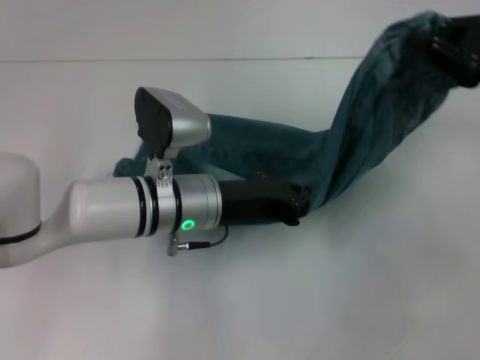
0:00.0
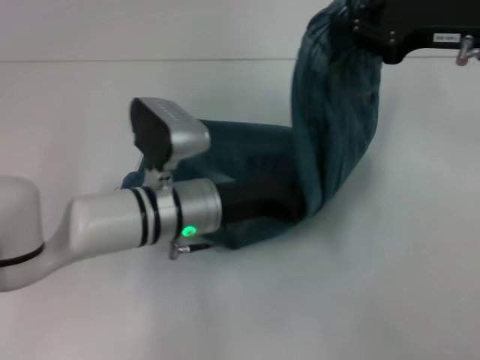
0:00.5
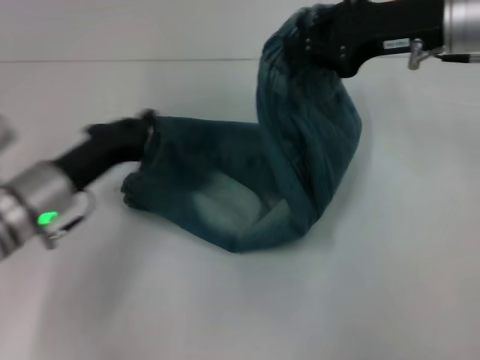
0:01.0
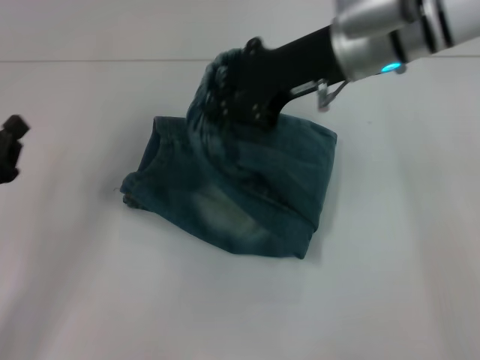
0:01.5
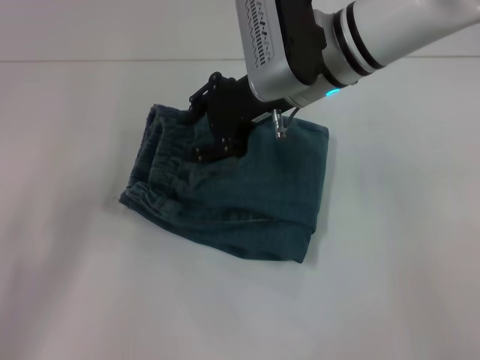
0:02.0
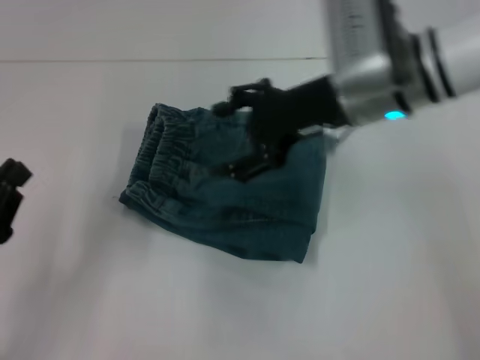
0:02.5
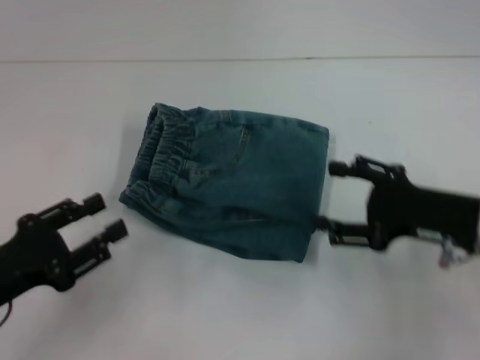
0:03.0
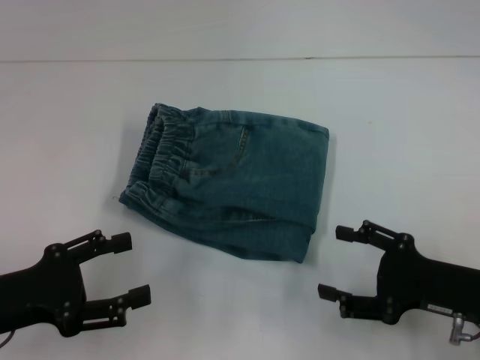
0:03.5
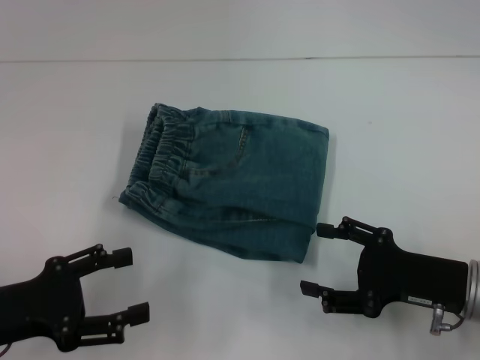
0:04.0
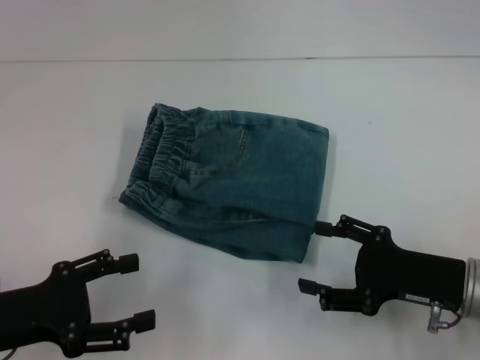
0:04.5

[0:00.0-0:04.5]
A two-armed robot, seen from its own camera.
Step, 0:01.0 to 0:02.0: Fold to the left with your right hand.
0:00.0 to 0:02.0: The right gripper shifts some 25 cm to the left, while the left gripper shifts some 30 cm to the left and backward.
0:02.0 to 0:04.5: The left gripper opens. The right gripper goes some 30 cm to the right, backward and downward, and opens up.

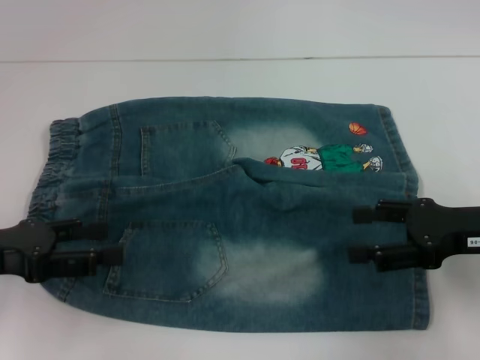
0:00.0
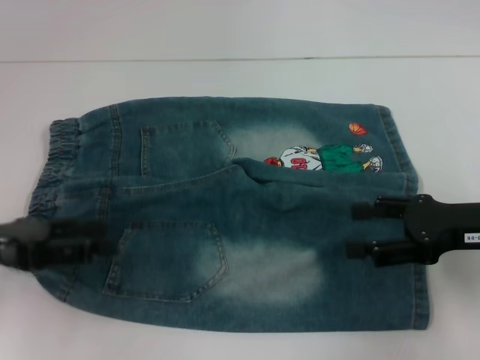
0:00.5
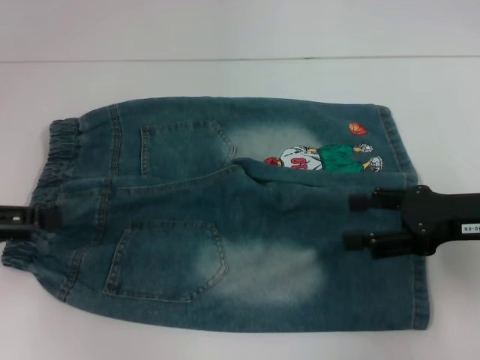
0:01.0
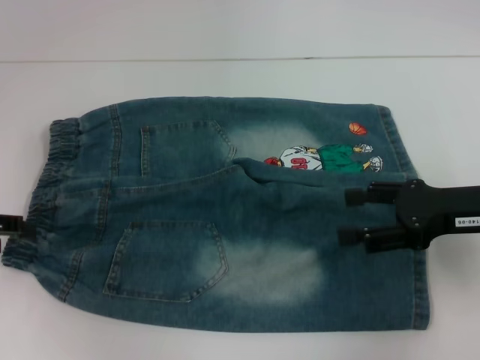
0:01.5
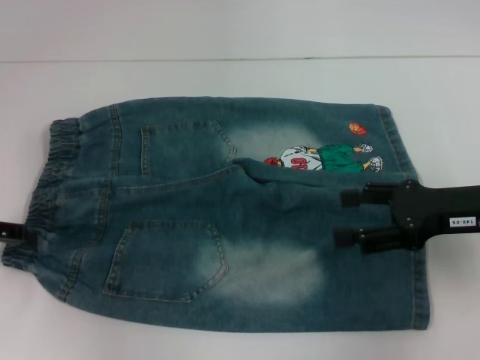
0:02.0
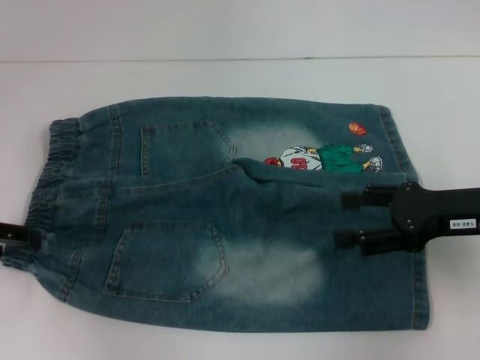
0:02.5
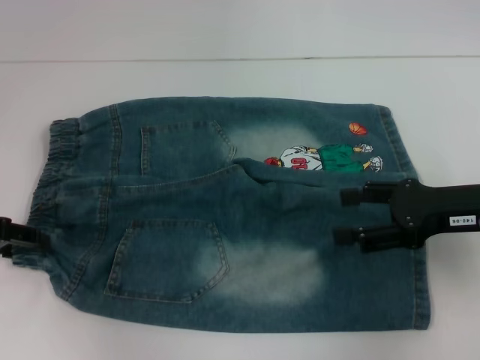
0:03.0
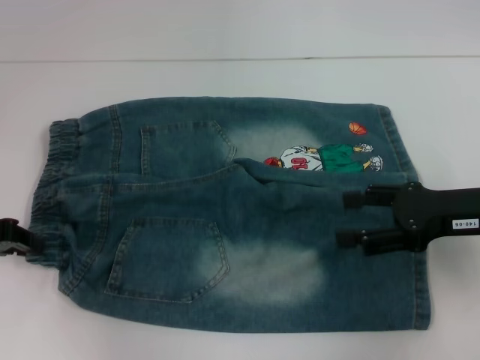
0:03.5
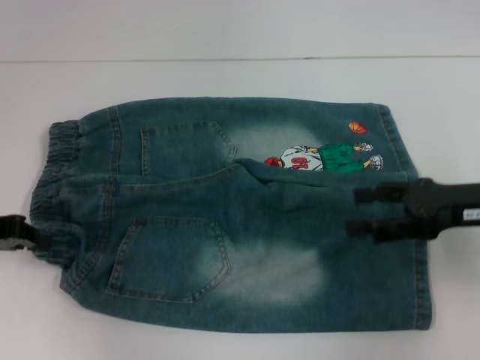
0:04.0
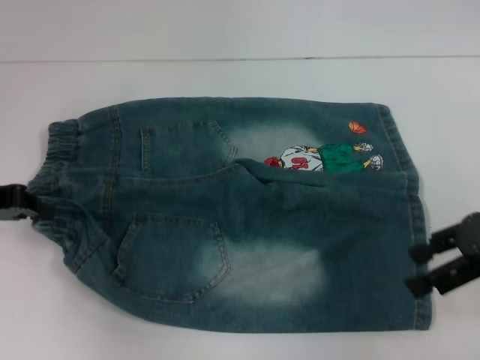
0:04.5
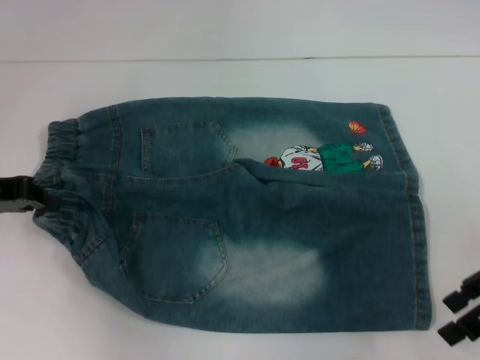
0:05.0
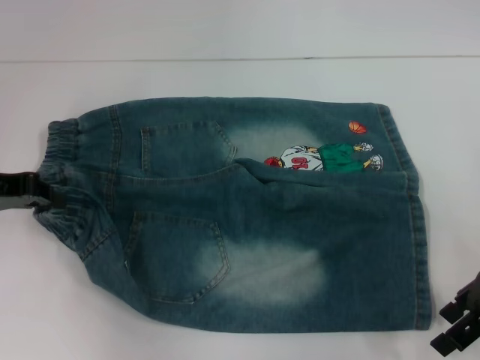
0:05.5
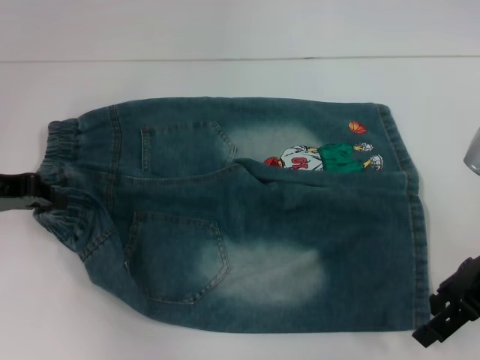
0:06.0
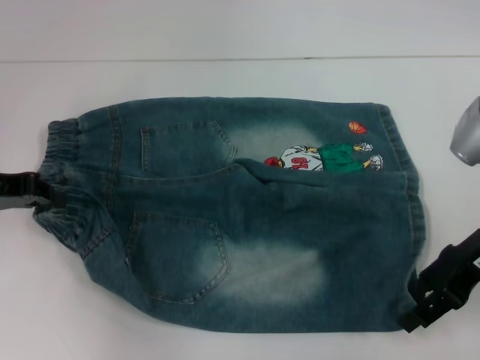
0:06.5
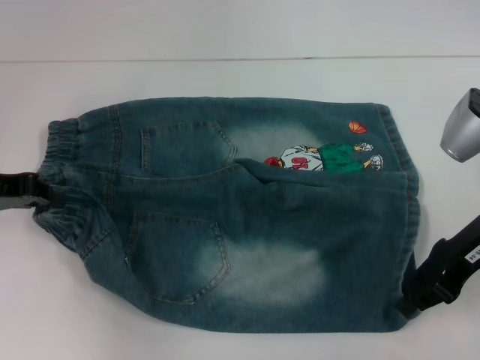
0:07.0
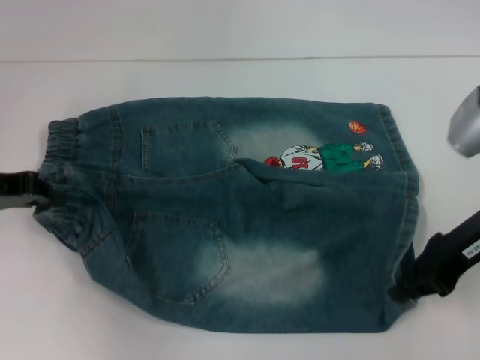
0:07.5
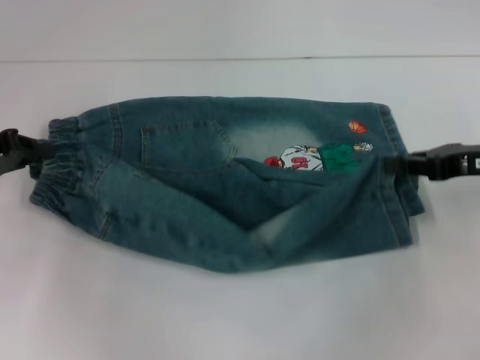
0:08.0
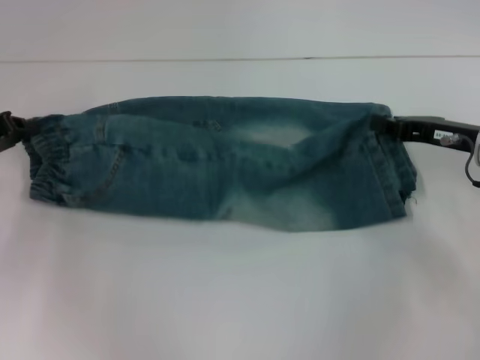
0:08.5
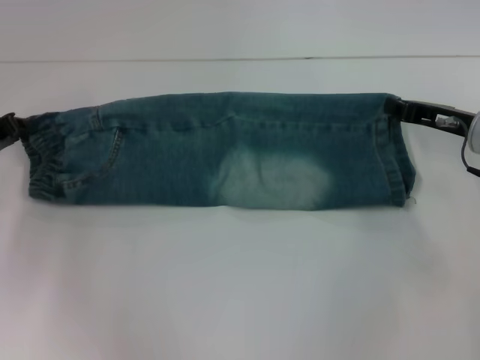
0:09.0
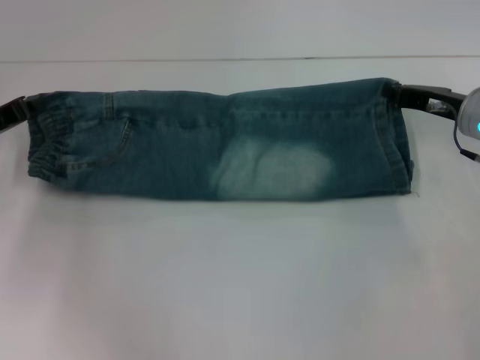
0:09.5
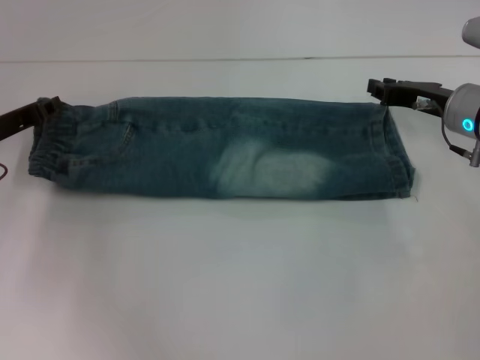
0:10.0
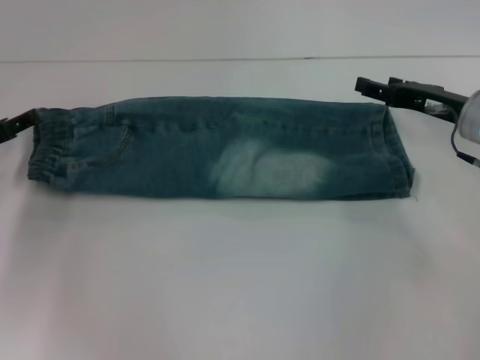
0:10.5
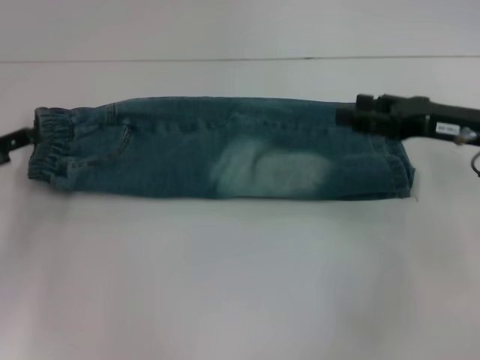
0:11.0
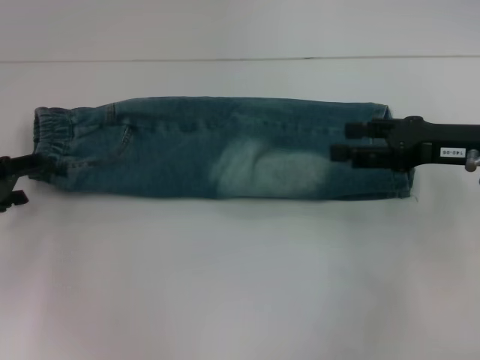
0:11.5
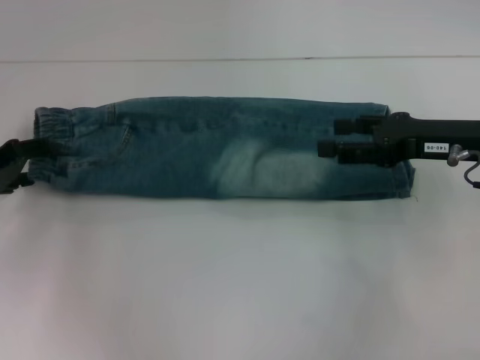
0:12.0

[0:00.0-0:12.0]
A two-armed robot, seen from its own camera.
Step, 0:00.0 to 0:03.5: Hold the lower left waistband with your left hand.
Step, 0:04.0 to 0:07.0: Grab the lower right pant leg with your right hand.
Step, 0:07.5 to 0:09.5: Fold upward with your right hand.
Step, 0:10.0 to 0:10.5: Fold upward with your left hand.
0:00.0 to 0:02.0: The left gripper goes some 5 cm forward and to the left.
0:02.0 to 0:04.0: The left gripper closes up.
0:06.0 to 0:08.0: The right gripper moves some 5 cm, and closes up.
0:08.0 to 0:10.0: The left gripper shifts by some 5 cm. The right gripper goes roughly 10 cm forward and to the left.
0:10.0 to 0:12.0: The right gripper heads backward, covering about 5 cm, and opens up. The left gripper opens up.

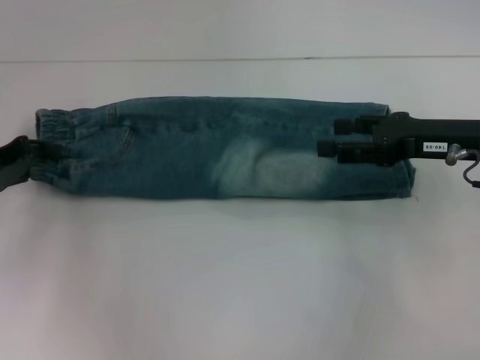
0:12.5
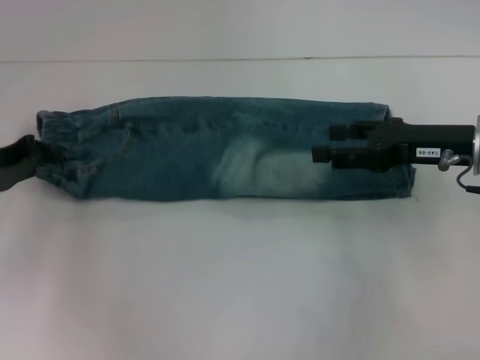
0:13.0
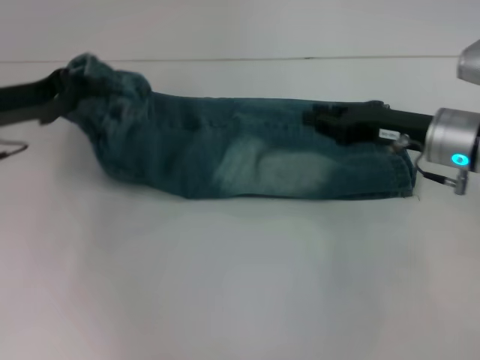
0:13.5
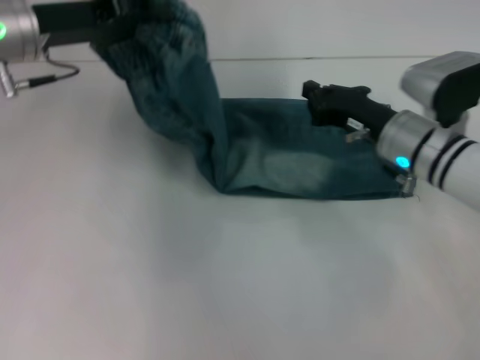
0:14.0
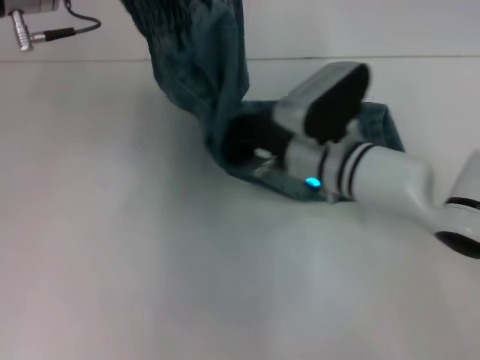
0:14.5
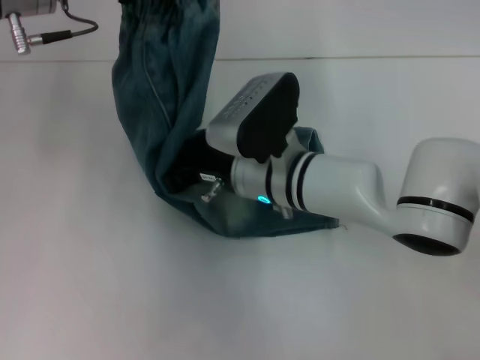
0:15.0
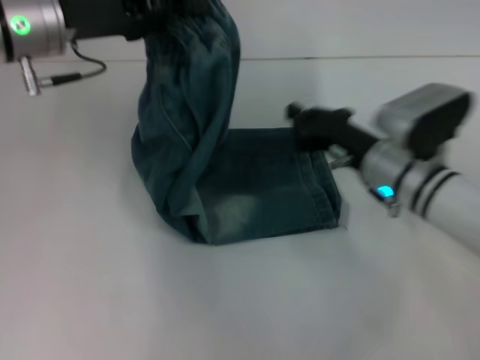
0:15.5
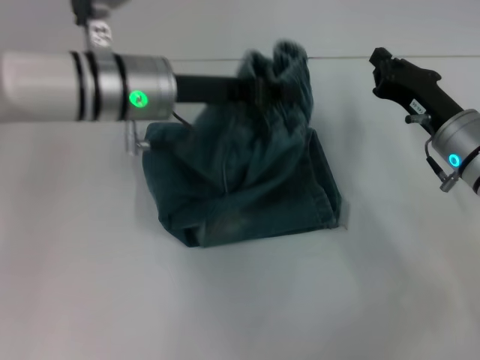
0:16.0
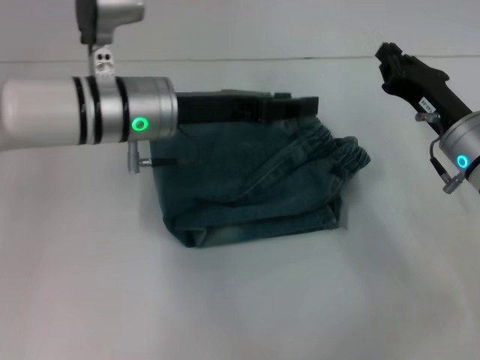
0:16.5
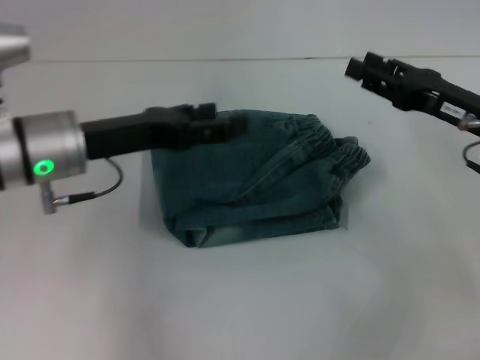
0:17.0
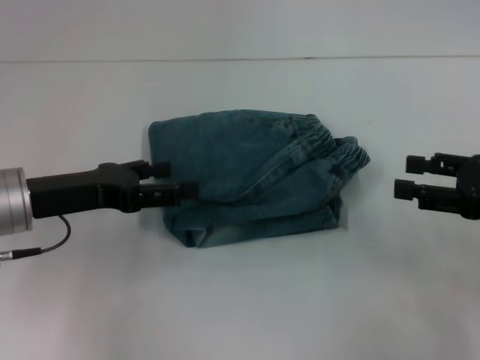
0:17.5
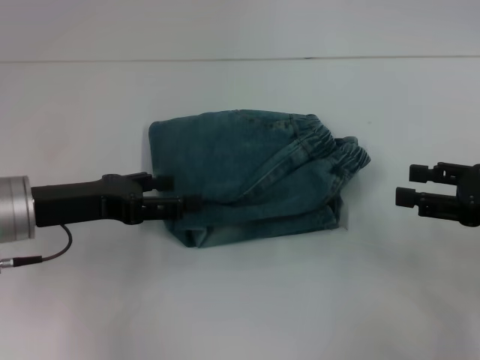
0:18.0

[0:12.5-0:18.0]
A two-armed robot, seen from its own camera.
Step, 0:13.0 to 0:15.0: Press the middle of the pants with your right hand.
Step, 0:15.5 to 0:16.0: Fold to the right with your left hand.
0:12.5 to 0:14.5: The left gripper moves upward, to the right and forward, some 20 cm, and closes up. The right gripper shifts roughly 15 cm to the left, and closes its fingers.
0:14.5 to 0:16.0: The left gripper heads to the right and downward, covering approximately 10 cm, while the right gripper is displaced to the right by roughly 15 cm.
0:16.0 to 0:18.0: The left gripper travels to the left and backward by approximately 15 cm, and opens up. Meanwhile the right gripper moves to the right and backward, roughly 15 cm, and opens up.

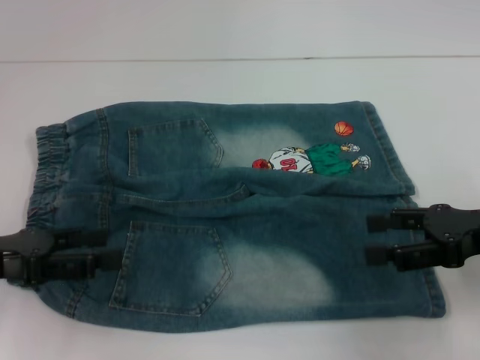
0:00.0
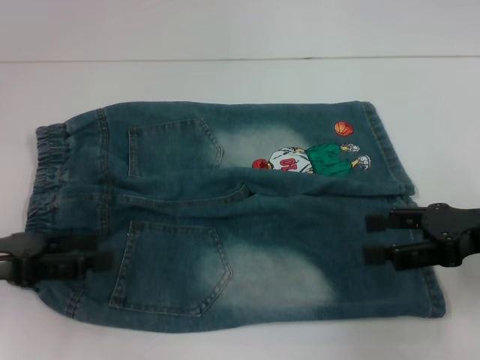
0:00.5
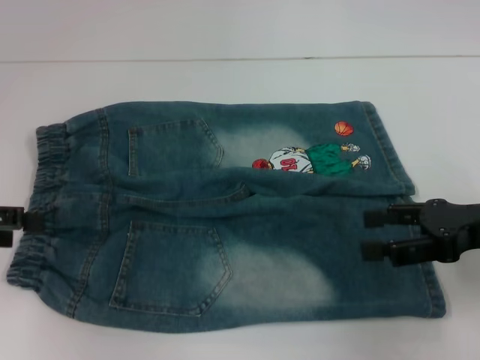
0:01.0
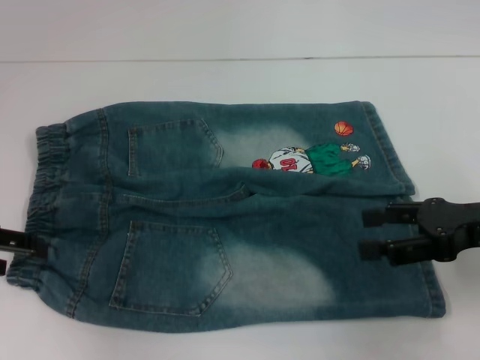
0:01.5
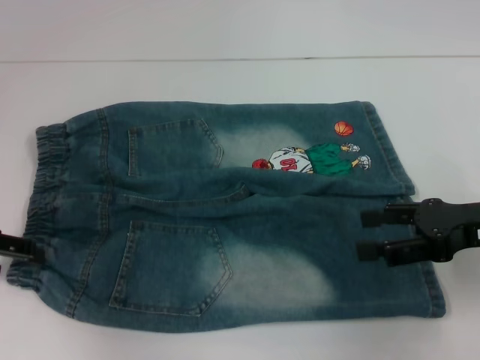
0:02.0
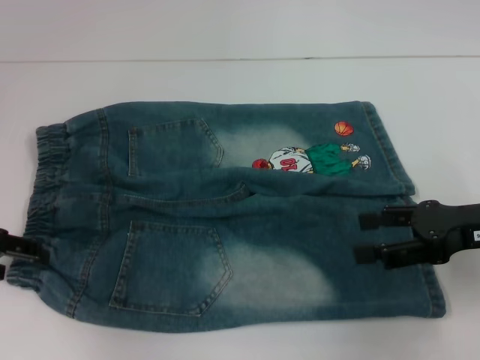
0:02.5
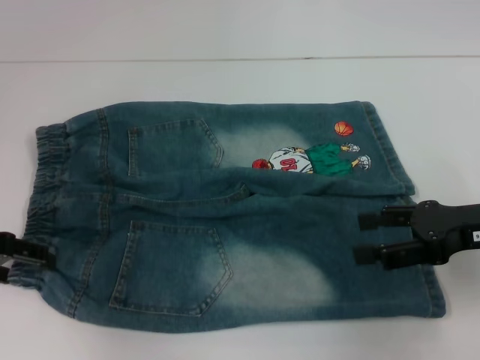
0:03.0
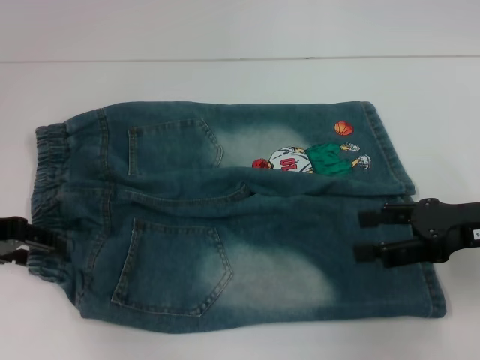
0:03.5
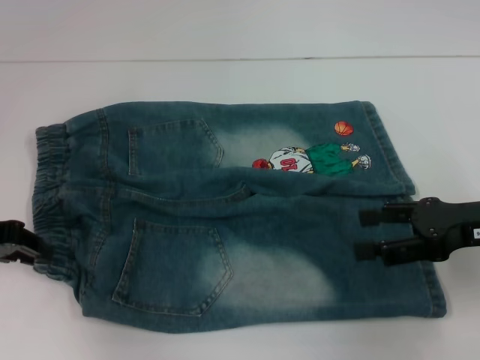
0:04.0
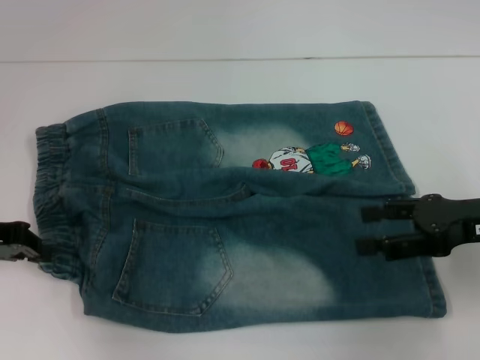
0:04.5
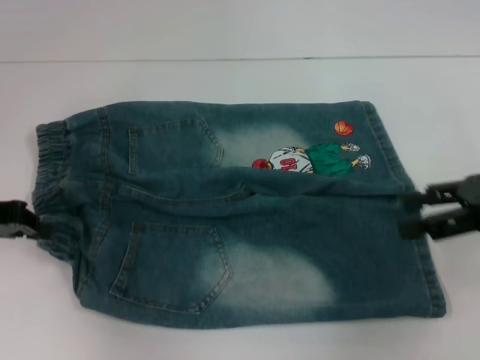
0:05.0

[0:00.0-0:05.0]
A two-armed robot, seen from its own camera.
Step, 0:00.0 to 0:04.5: Hold the lower left waistband with your left hand.
0:00.0 to 0:02.5: The left gripper moves forward, about 5 cm.
0:02.5 to 0:05.0: The right gripper ends up some 5 cm from where it was; the left gripper closes.
